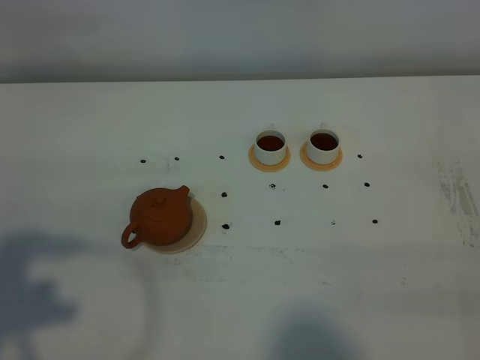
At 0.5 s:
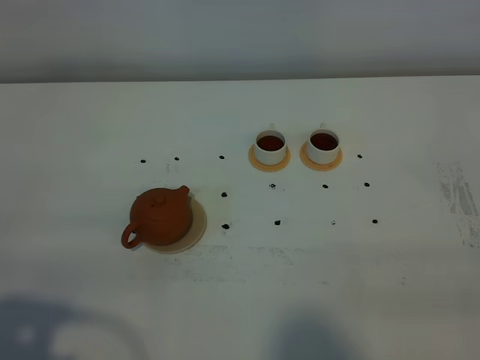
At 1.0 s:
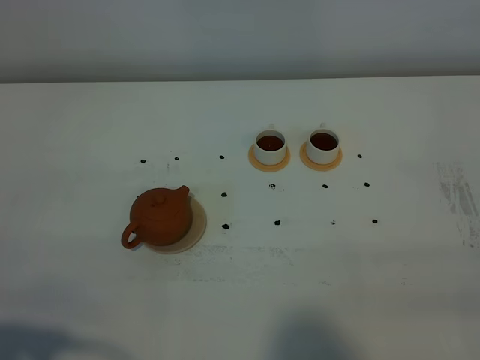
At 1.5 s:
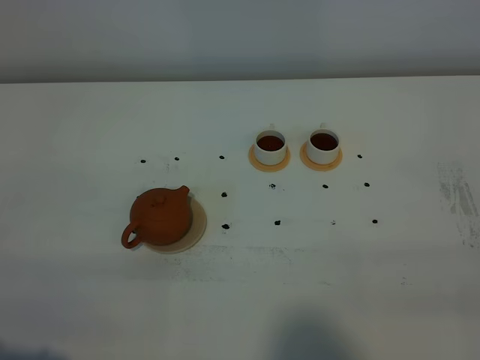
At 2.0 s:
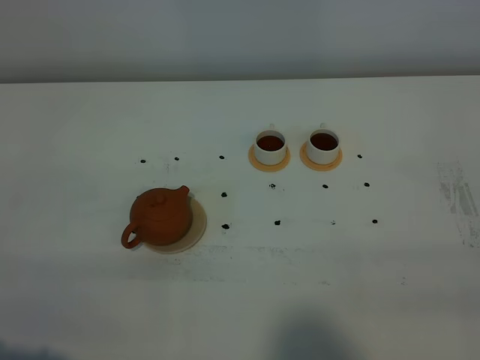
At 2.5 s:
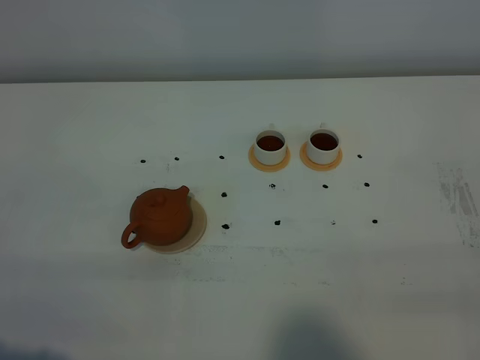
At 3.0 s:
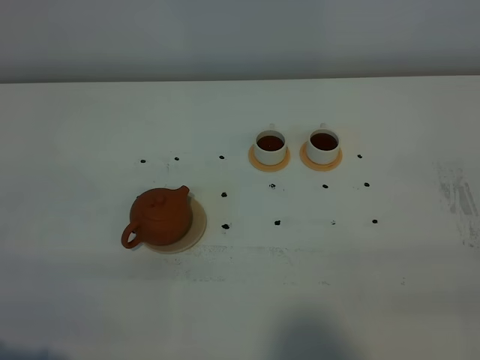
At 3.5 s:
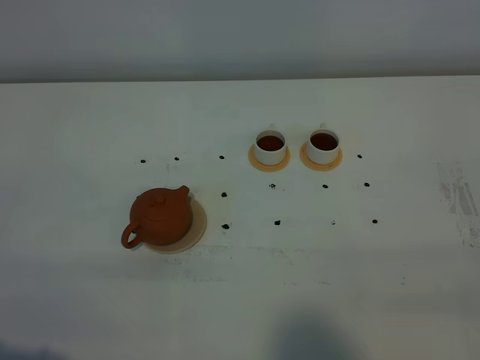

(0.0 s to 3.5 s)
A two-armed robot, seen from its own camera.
Task of the whole recording: grasp the brown teapot and pour the tea into the two white teacups one by one, put the brown teapot back in its original place.
0.0 s - 2.0 s: The left gripper goes roughly 15 cm backward and downward.
2.0 s - 3.5 s: The two grippers keep their place.

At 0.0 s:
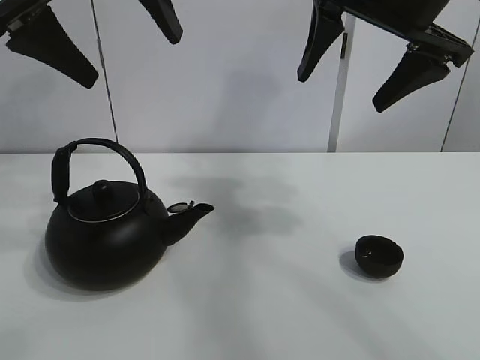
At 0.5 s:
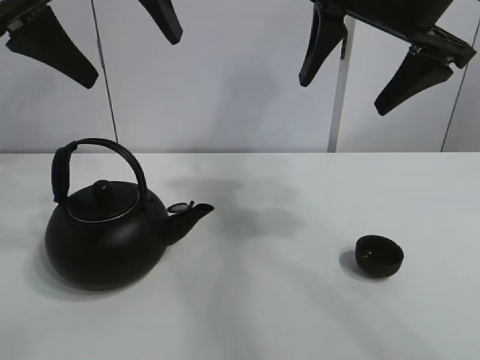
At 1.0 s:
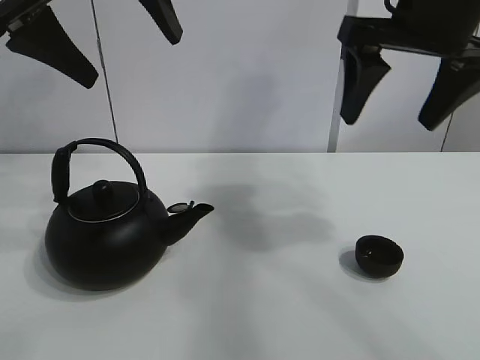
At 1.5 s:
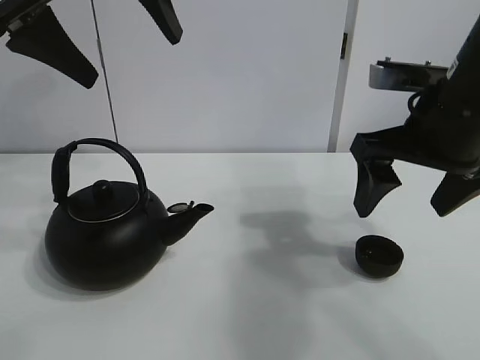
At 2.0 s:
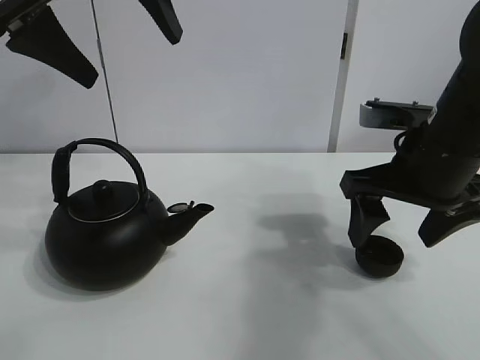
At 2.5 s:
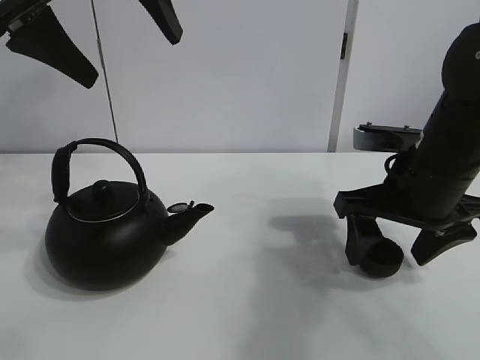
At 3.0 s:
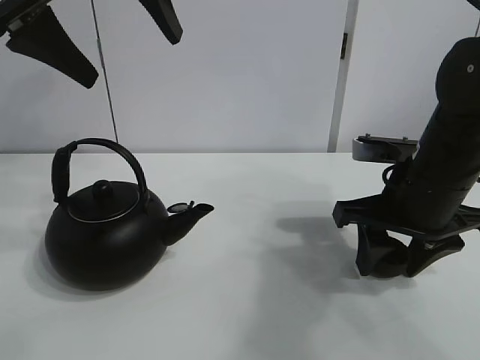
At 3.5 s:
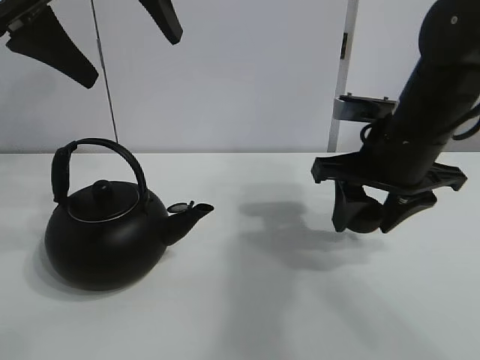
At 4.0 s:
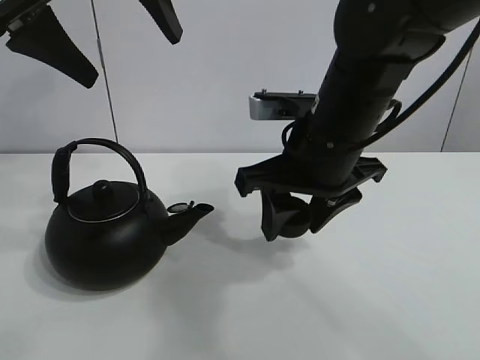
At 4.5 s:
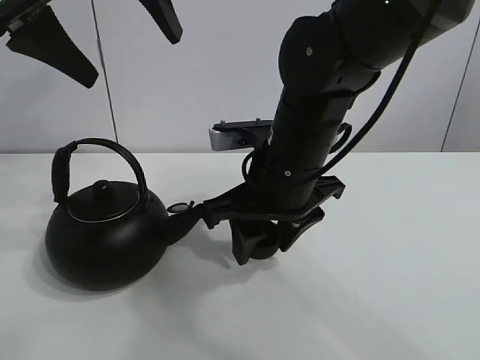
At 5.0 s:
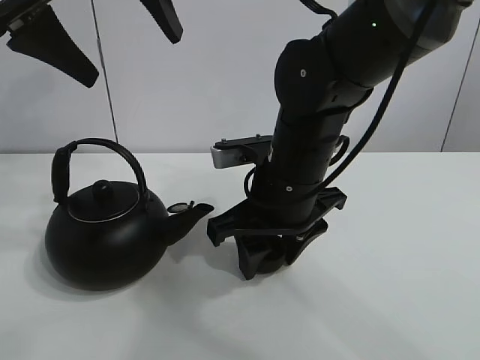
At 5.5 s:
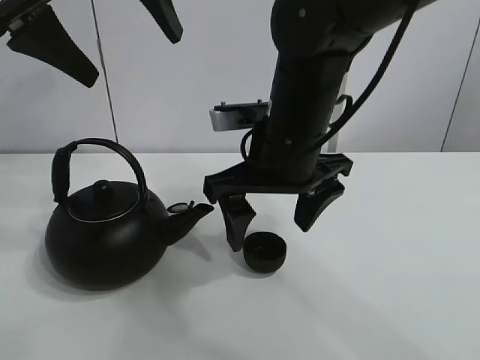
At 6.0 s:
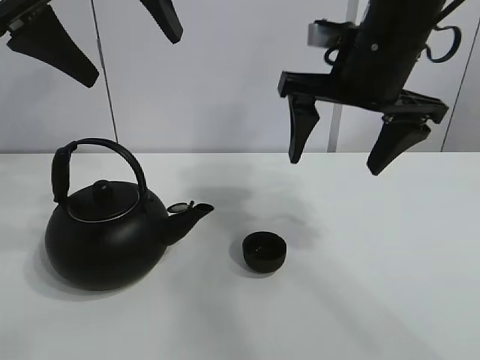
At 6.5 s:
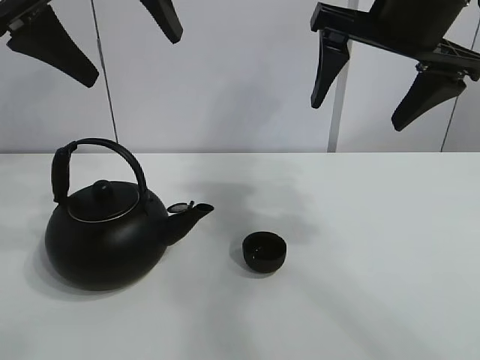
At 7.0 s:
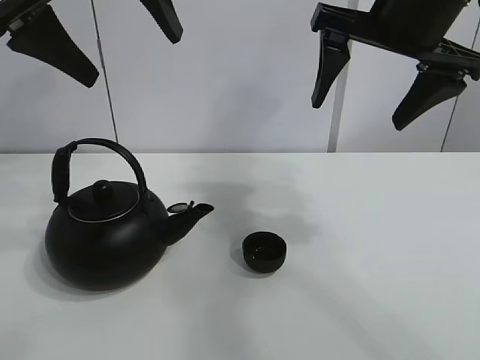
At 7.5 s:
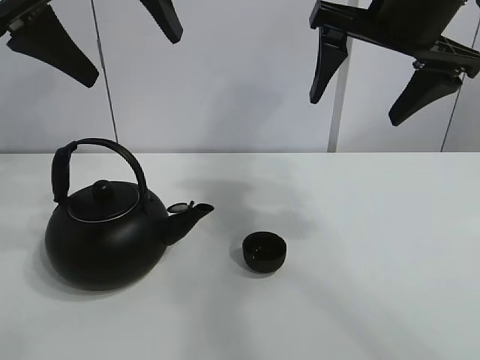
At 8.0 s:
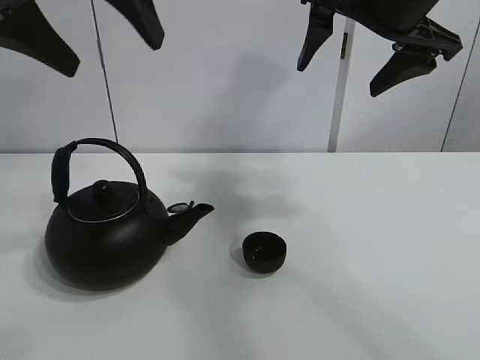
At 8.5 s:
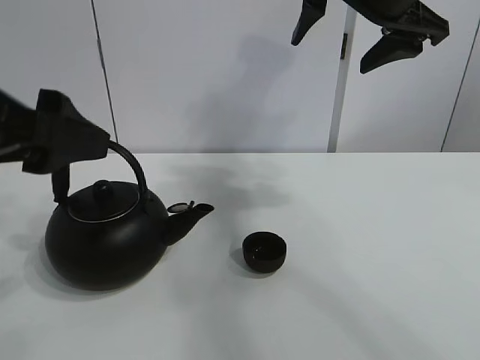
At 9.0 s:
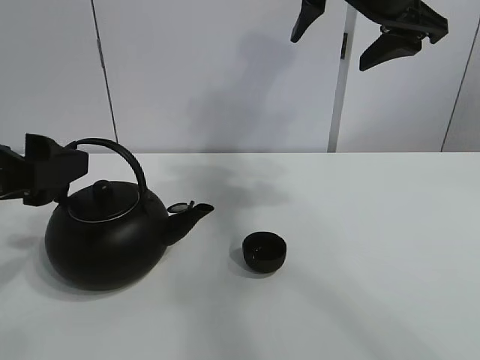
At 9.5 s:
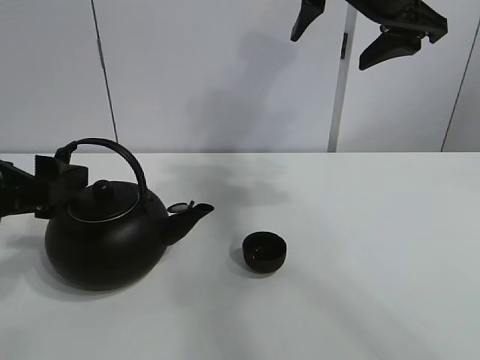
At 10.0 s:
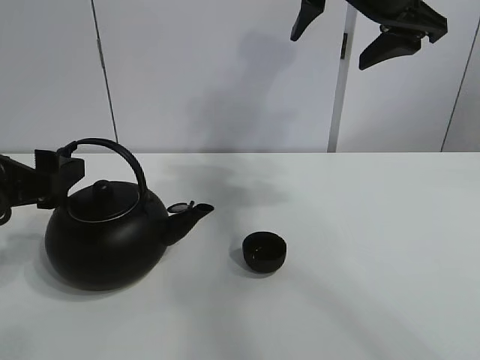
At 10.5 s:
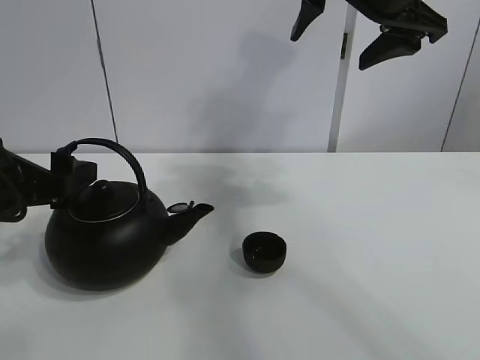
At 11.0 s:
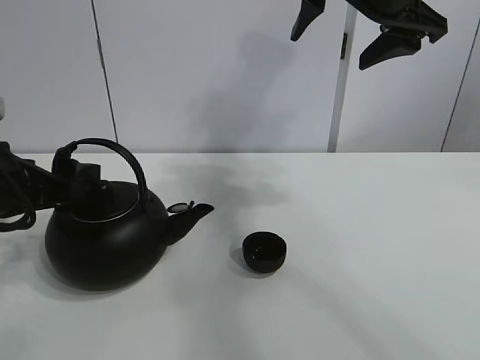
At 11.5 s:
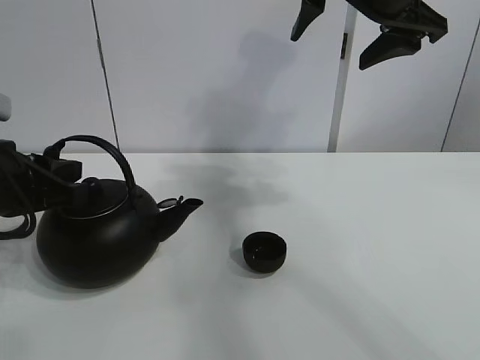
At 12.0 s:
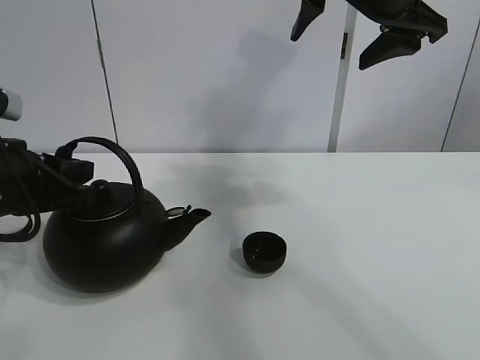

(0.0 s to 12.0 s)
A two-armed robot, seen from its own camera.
Task of the whole recording: pour tea into the teacup.
Step, 0.0 s - 2.5 s: Pick up the teacup with the right gripper.
Step, 3.0 s - 4.5 s: Place the teacup in the center of view with the right gripper.
Step, 5.0 s - 11.0 s: Pick up the teapot with the left gripper.
2.0 s - 4.0 s: The right gripper is displaced to the left by some 10 cm, and closes its fingers.
4.0 s - 6.0 s: The right gripper shifts roughly 5 cm upward, and opens its fingers.
6.0 s - 8.0 s: The right gripper heads upward, covering roughly 5 cm.
8.0 s - 10.0 s: The left gripper travels downward and to the left by some 20 cm.
10.0 s - 12.0 s: The left gripper closes.

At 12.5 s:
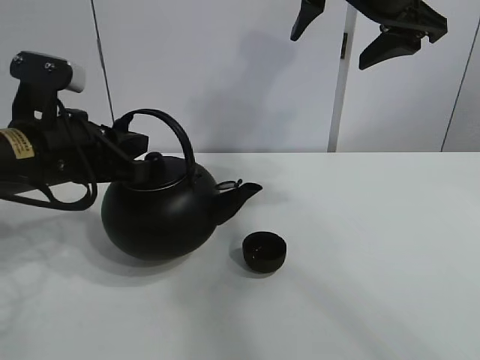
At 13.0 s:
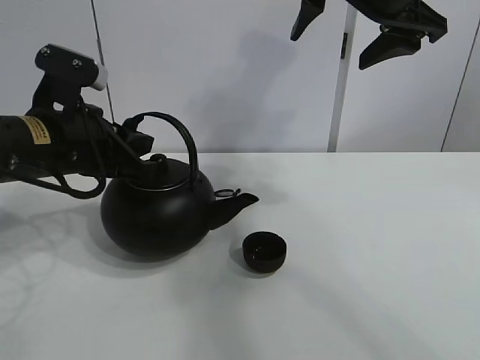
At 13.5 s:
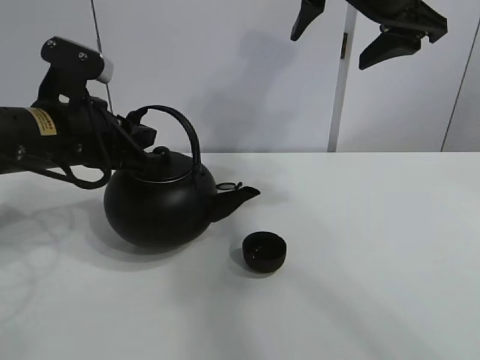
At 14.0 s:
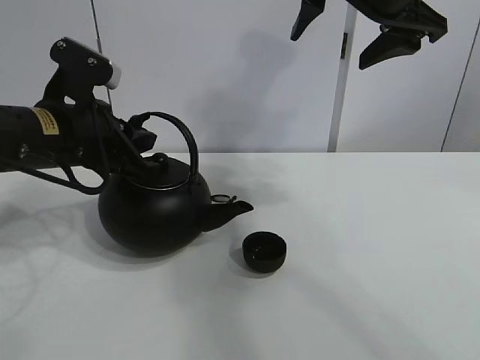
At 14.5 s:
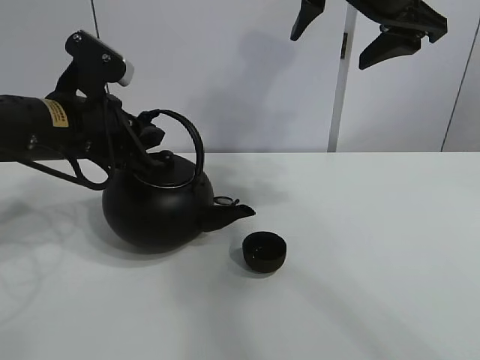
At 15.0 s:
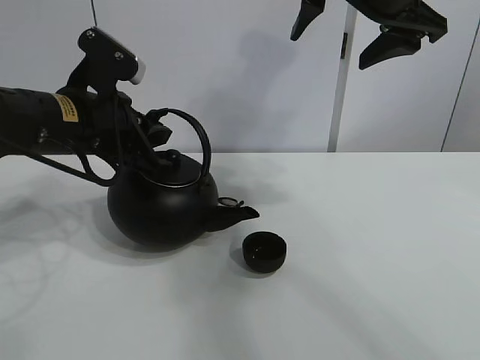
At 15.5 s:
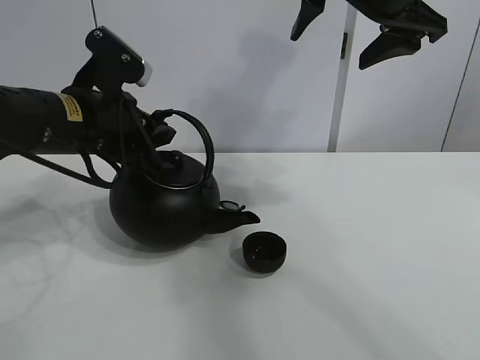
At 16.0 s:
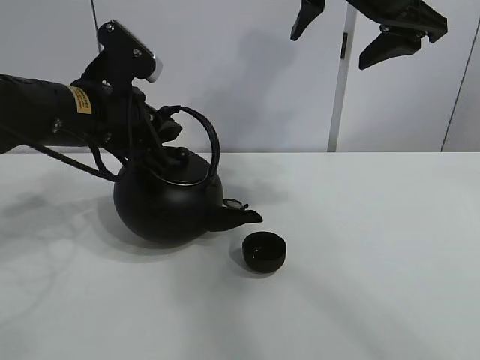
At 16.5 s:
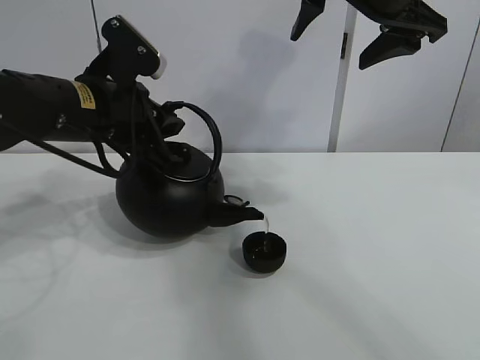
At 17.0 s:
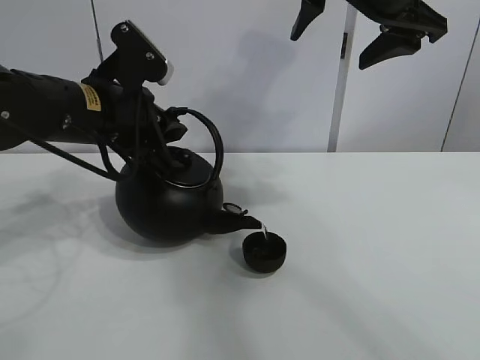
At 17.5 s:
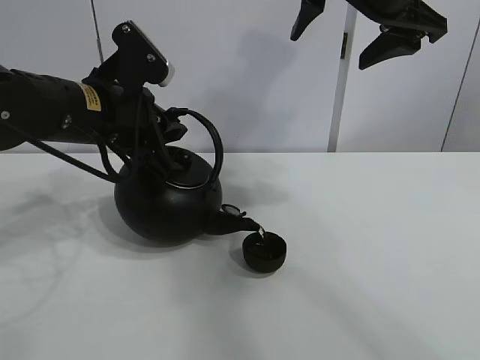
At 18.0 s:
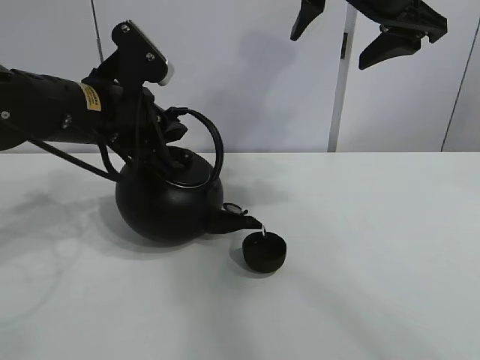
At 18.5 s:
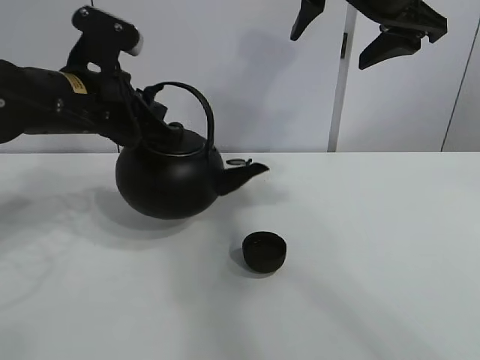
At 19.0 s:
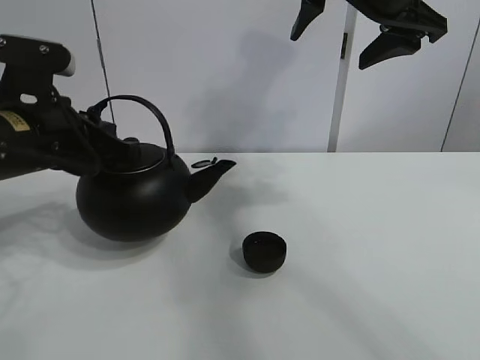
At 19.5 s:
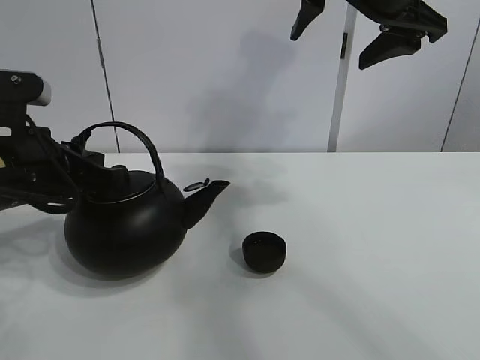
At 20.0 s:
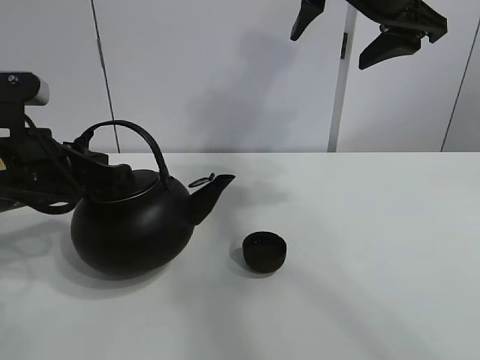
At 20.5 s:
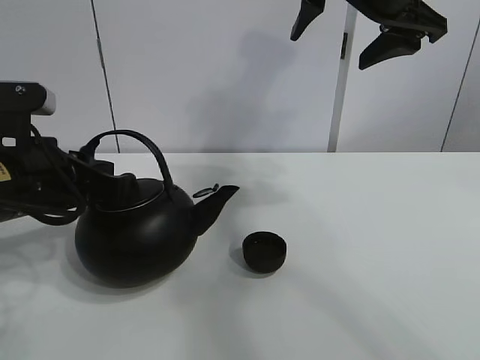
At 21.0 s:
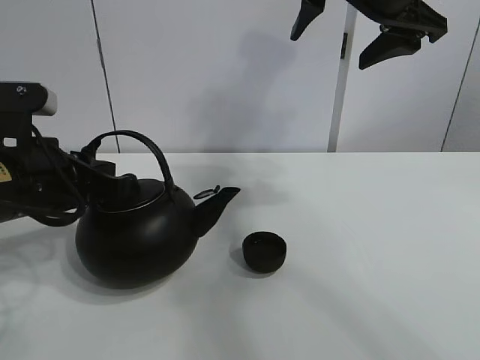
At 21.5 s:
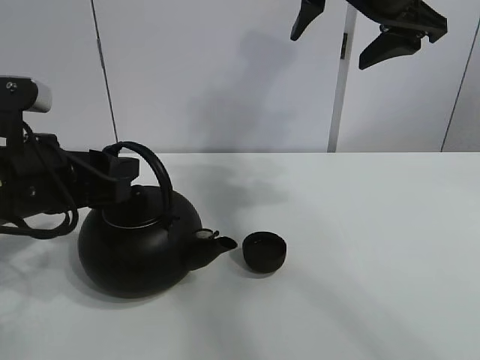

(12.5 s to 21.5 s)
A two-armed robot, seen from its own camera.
Task of the whole recording: pour tea into the teacup.
Step, 12.5 s - 18.0 s: Pour tea into the teacup with the left gripper.
12.5 s - 14.5 s: There are only small adjustments of the grippers.
14.5 s - 17.0 s: The grippers move only a little.
17.0 s - 19.5 s: The left gripper moves backward and to the left, some 10 cm.
19.5 s - 21.5 s: The left gripper opens.

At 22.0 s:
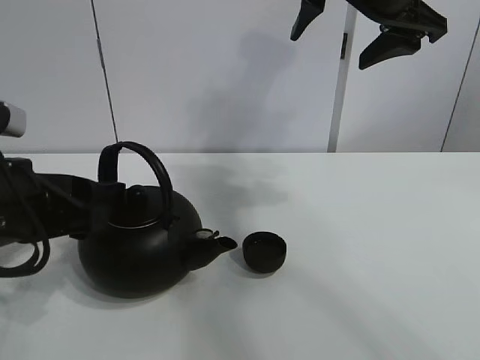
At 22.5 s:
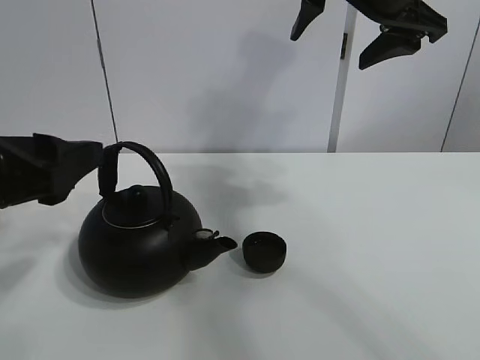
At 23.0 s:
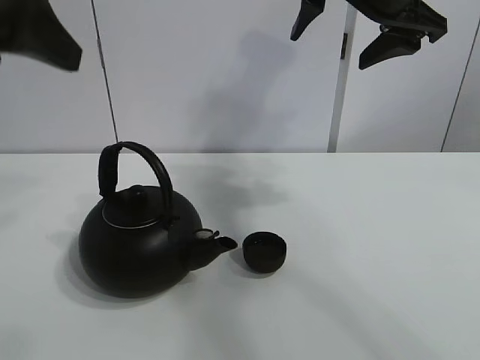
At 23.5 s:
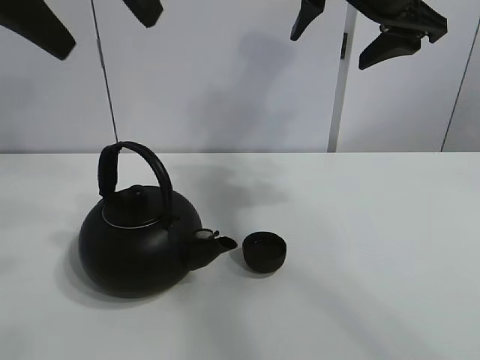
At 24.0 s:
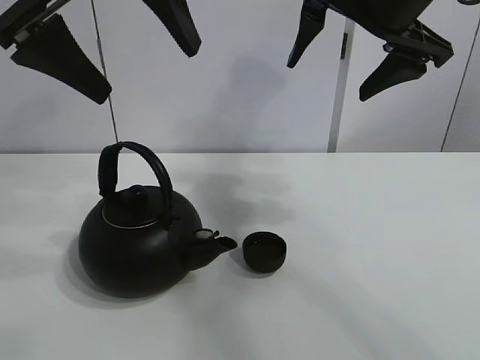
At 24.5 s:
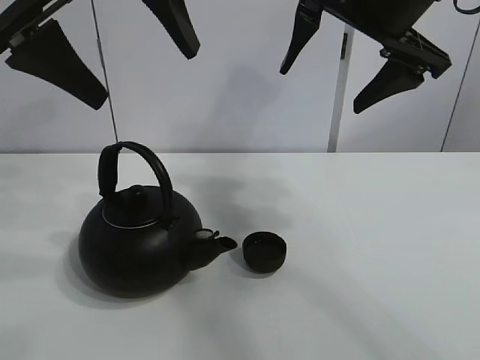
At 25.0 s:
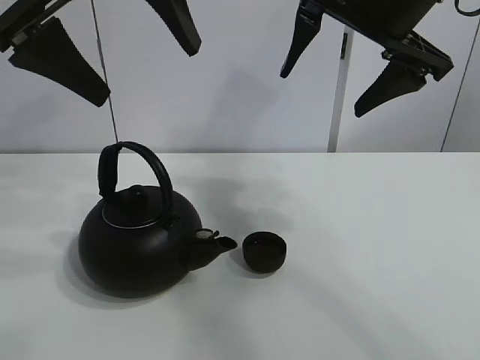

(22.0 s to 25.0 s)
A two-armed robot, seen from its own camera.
Task of the whole recording: pour tea into the teacup.
22.0 s - 23.5 s: The left gripper is displaced upward by about 25 cm.
